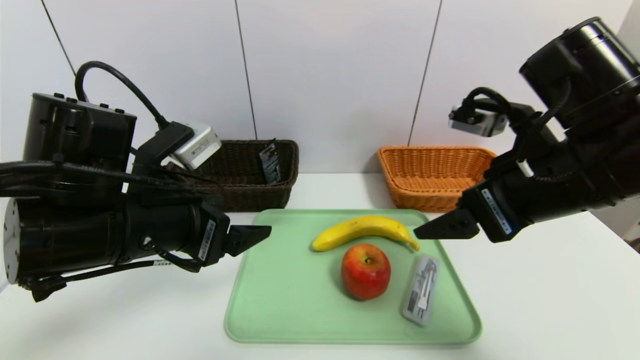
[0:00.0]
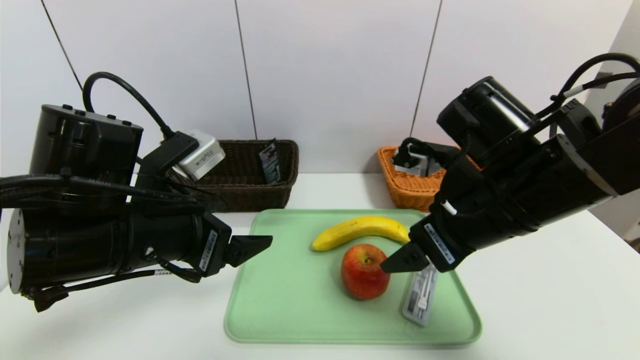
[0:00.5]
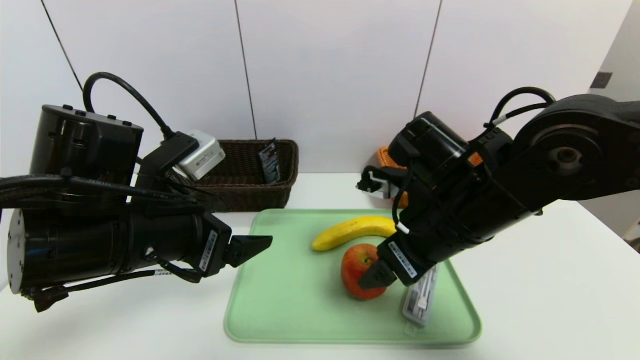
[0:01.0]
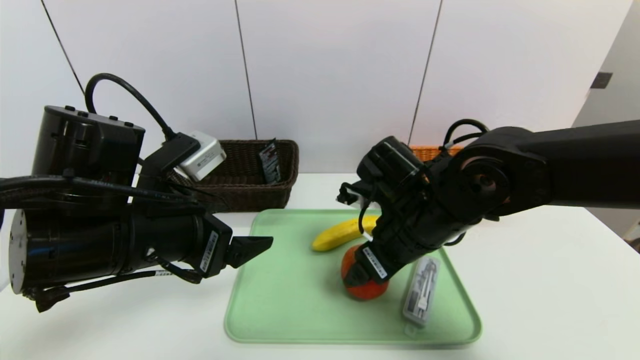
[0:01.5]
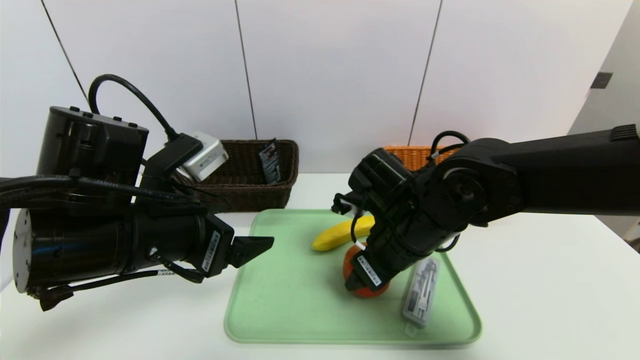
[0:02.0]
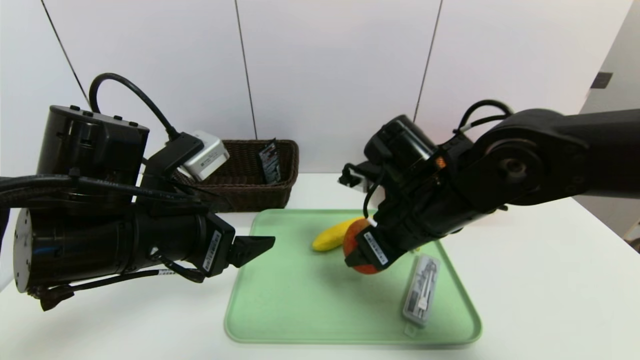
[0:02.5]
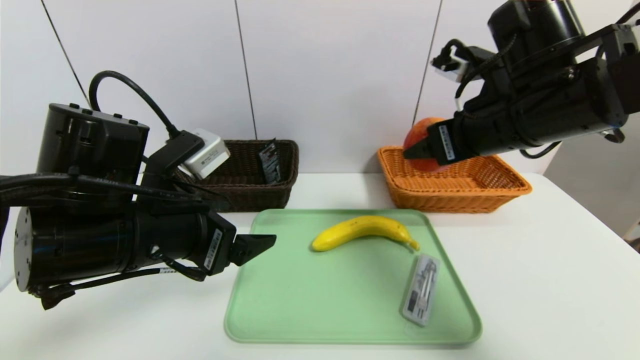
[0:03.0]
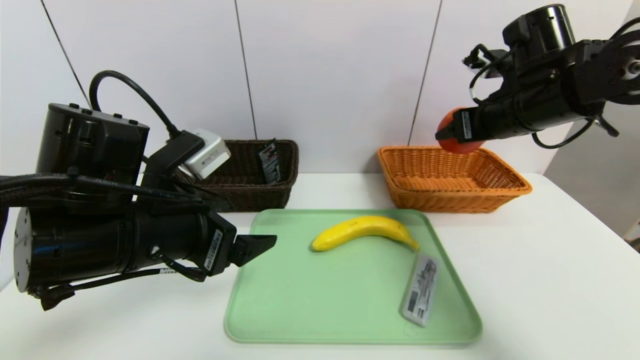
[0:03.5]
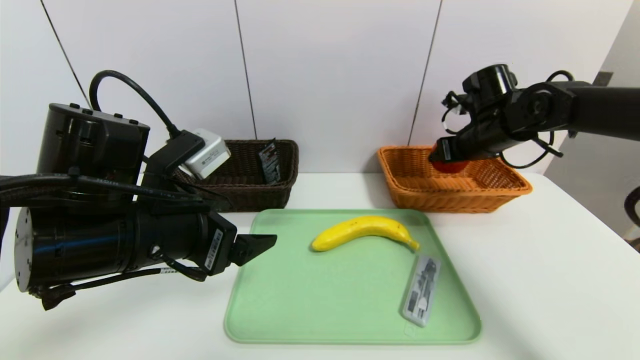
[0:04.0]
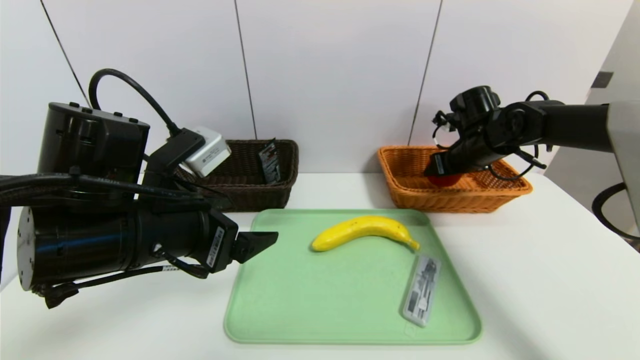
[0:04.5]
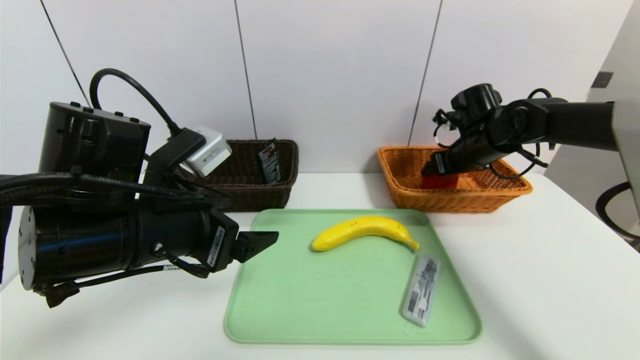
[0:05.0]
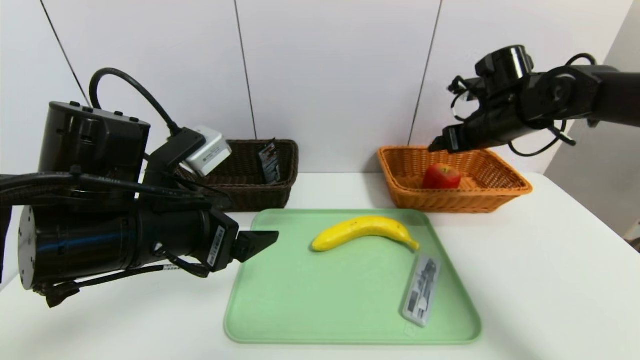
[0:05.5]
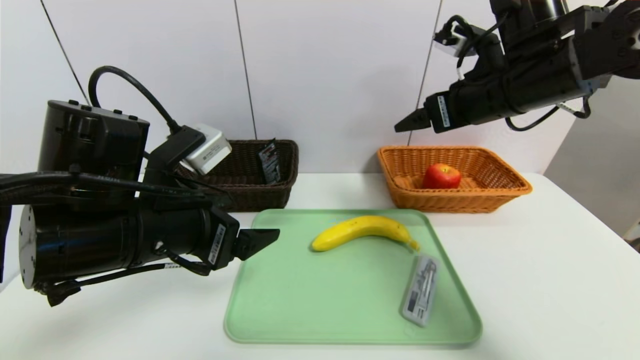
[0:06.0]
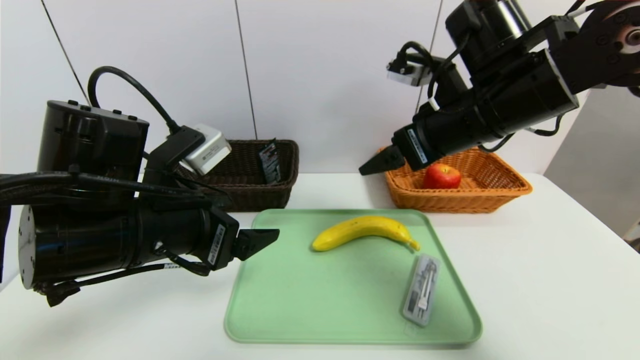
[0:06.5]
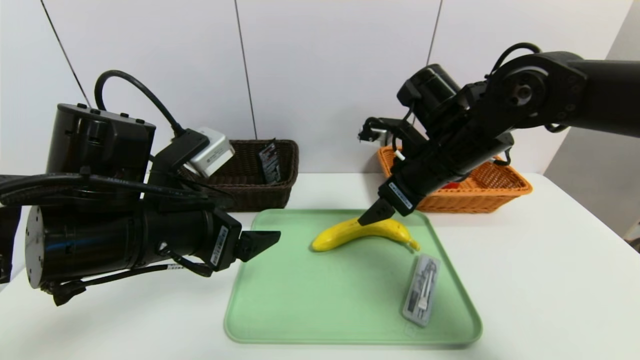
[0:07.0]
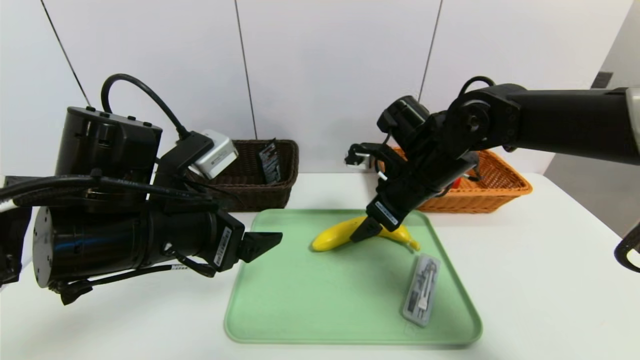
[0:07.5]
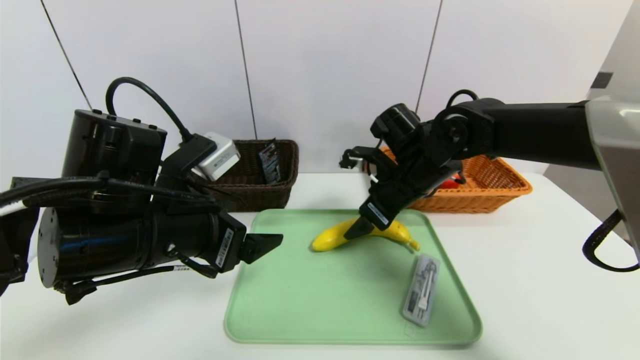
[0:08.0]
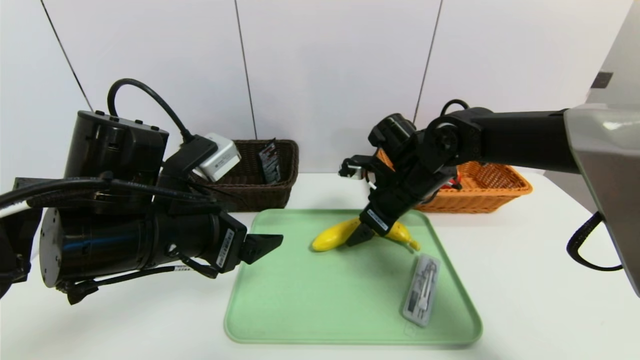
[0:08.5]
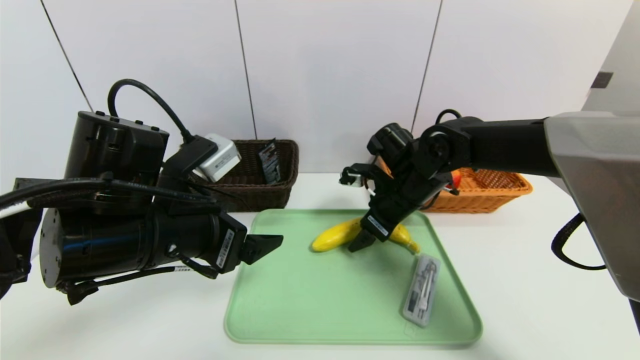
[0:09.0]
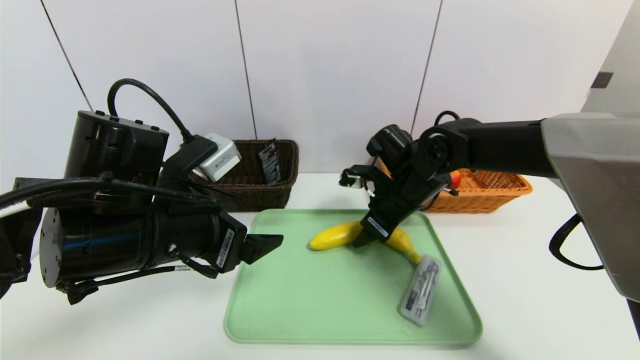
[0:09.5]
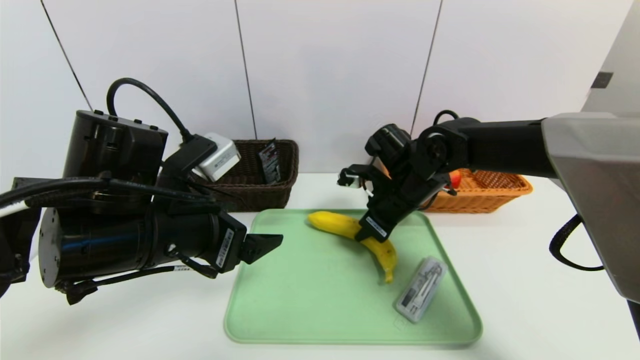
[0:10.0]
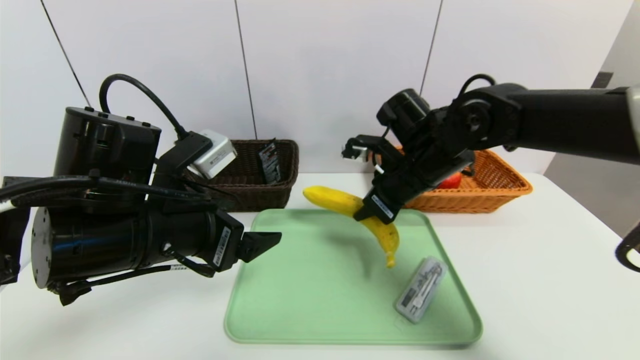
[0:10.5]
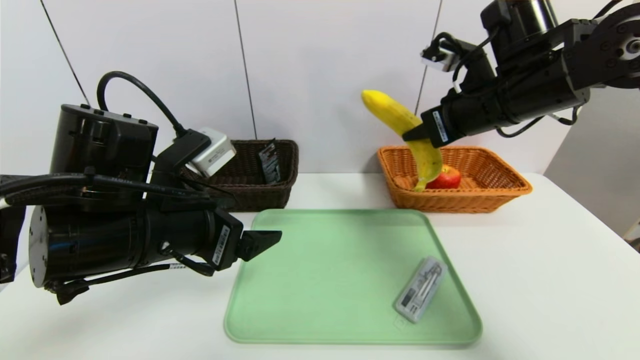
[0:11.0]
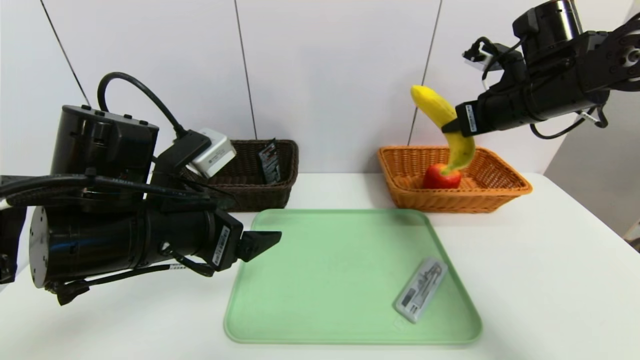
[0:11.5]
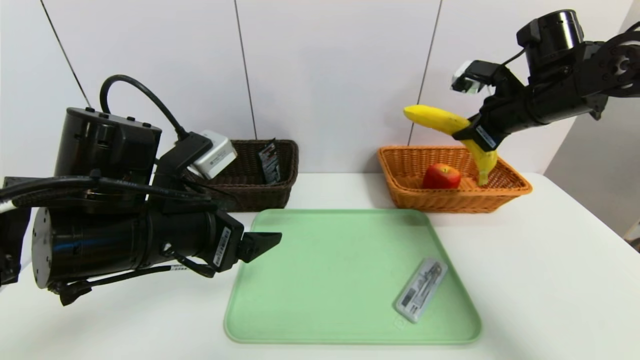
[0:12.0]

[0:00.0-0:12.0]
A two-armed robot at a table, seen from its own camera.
Task of the whole recording: place the food in the right basket with the right gripper, and place the non food items in the left basket with the left gripper.
Step, 0:00.0 to 0:05.0: Grasp the apple and put it in the right basket.
0:00.0 to 0:02.0: The right gripper is displaced downward, to the left and forward by roughly 15 cm, and closes.
0:02.0 to 0:04.0: The right gripper moves to the right and forward, some 25 cm.
0:04.0 to 0:06.0: The right gripper travels backward, upward and to the left by approximately 15 cm, and opens.
0:06.0 to 0:08.0: The right gripper heads downward and to the left, covering roughly 15 cm.
0:08.0 to 0:10.0: The right gripper closes its fingers.
0:10.0 to 0:12.0: The right gripper heads to the right and upward, covering approximately 20 cm.

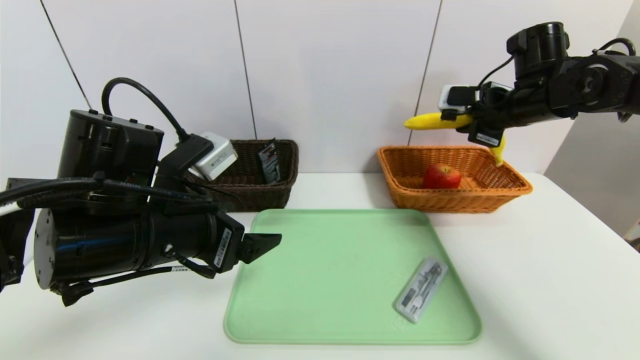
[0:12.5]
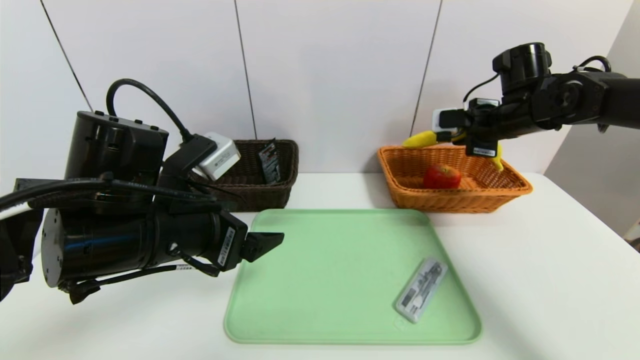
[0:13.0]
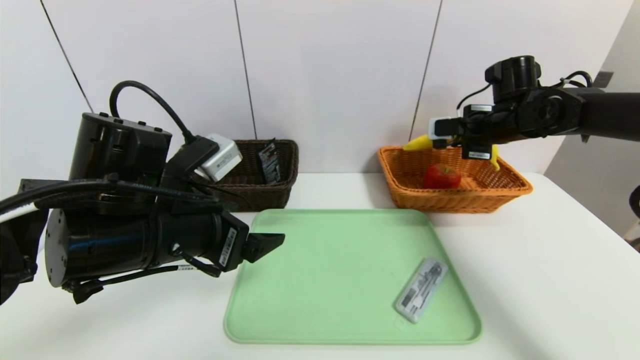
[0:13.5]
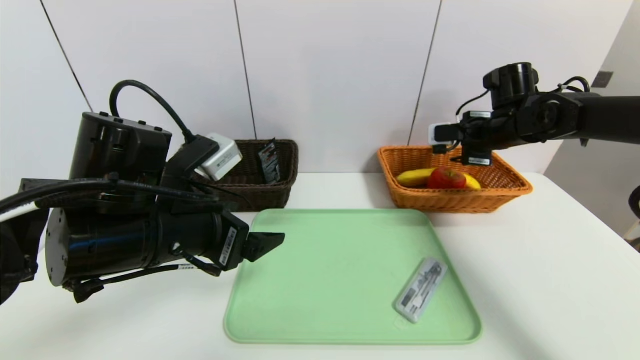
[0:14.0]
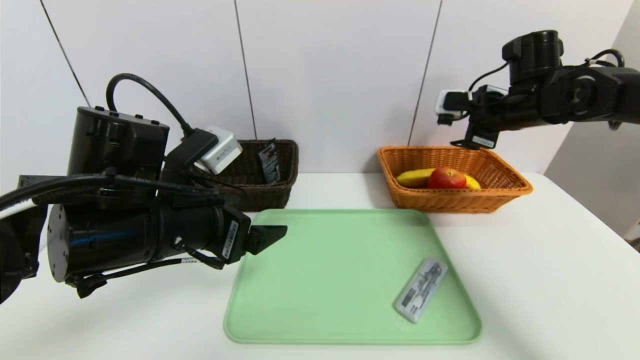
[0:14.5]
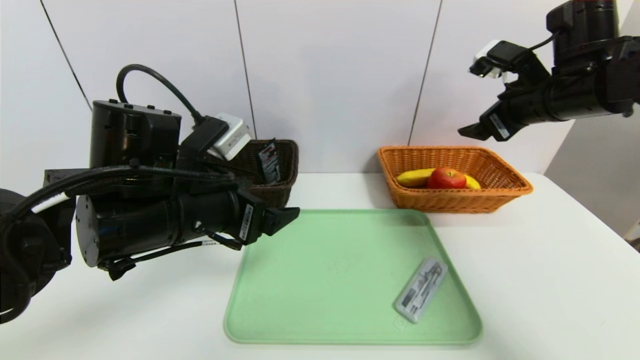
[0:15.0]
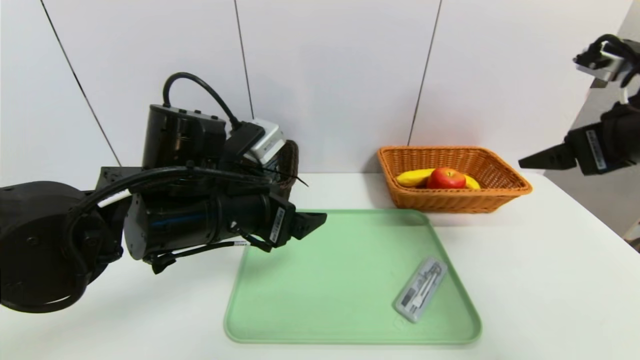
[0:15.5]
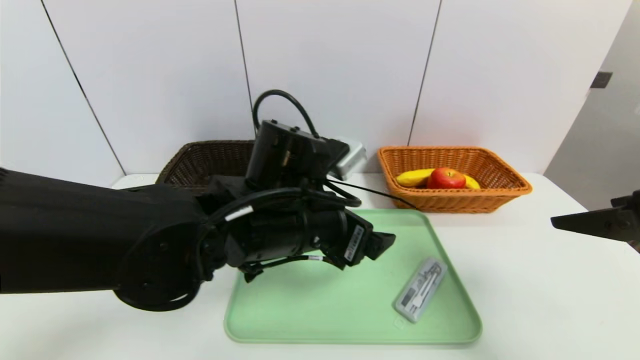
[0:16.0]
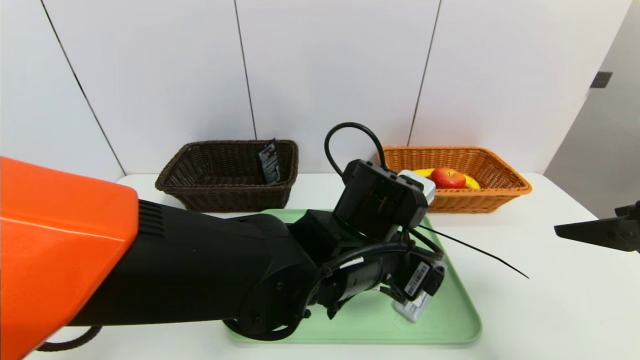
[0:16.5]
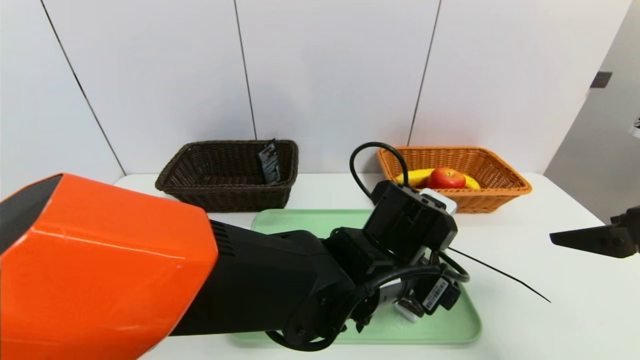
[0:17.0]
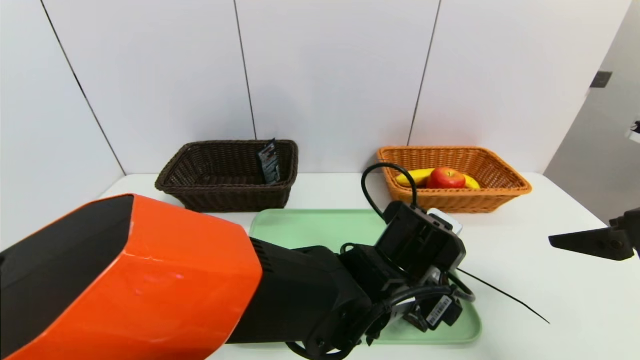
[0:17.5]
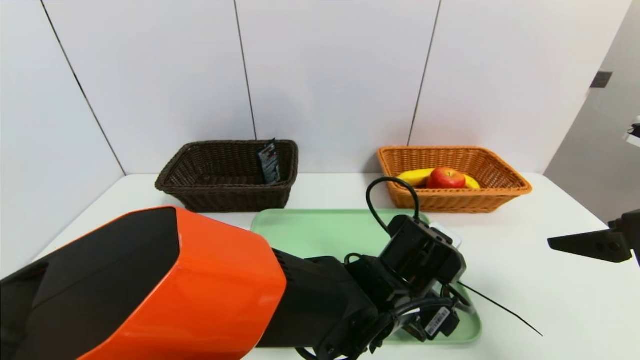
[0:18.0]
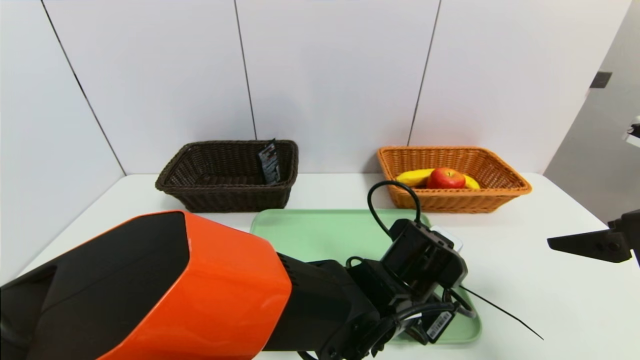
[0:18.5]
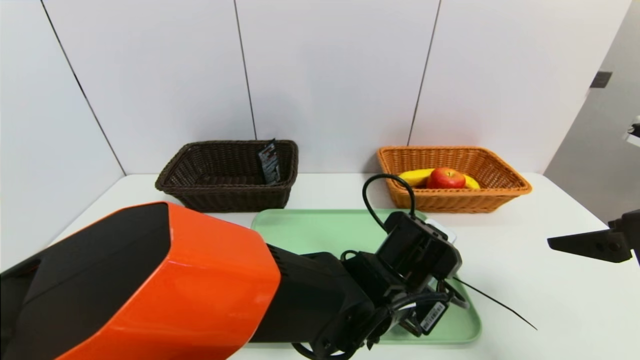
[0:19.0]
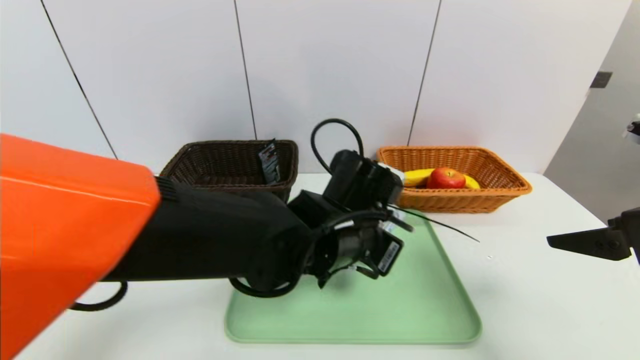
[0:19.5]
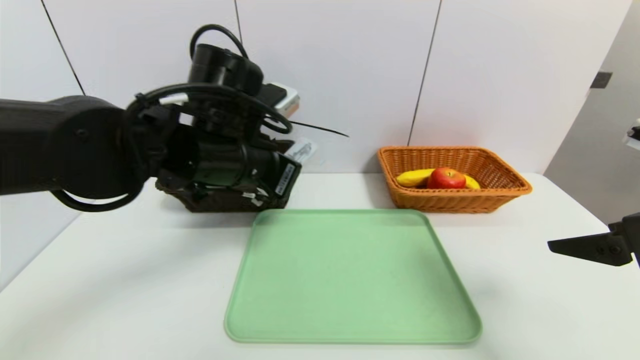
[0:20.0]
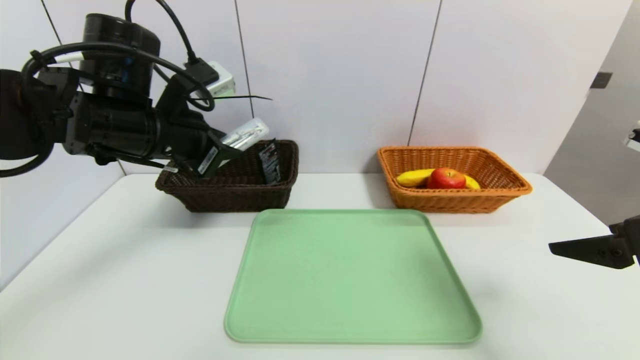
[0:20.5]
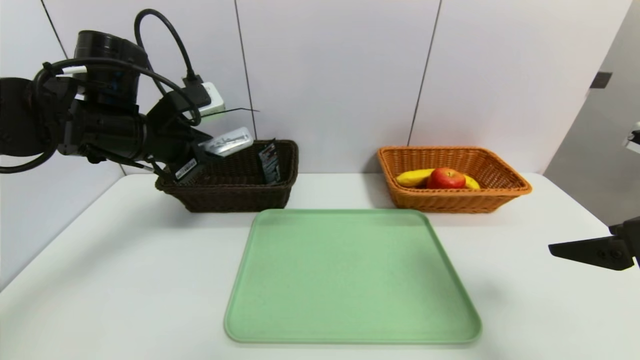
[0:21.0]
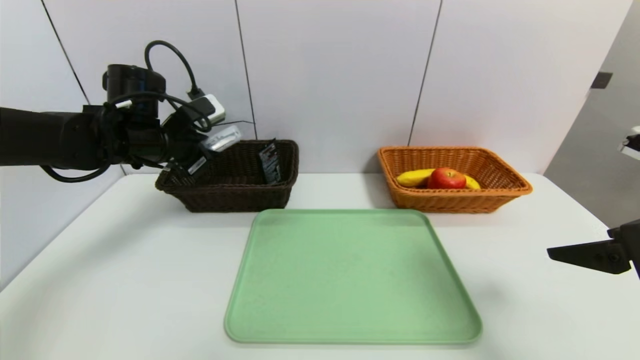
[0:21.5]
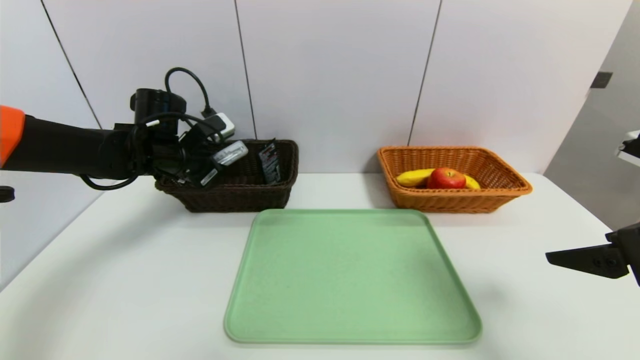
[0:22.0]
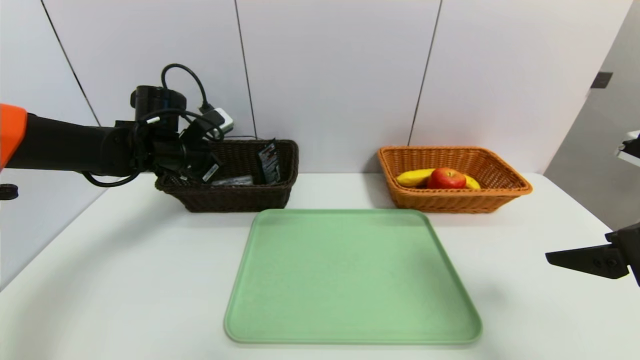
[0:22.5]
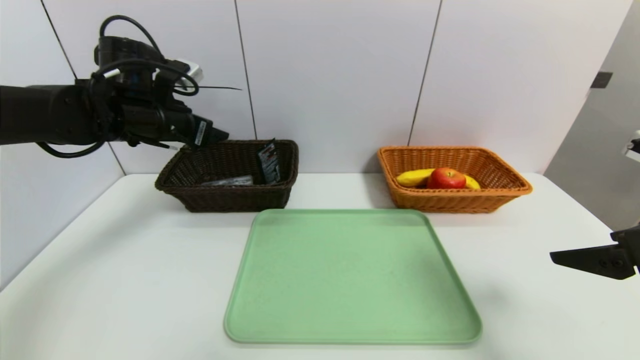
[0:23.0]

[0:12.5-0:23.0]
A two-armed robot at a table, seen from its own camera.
Task of the whole recording: place the food in the right basket with the right gripper, and place the non food items in the left basket with the left gripper.
Step, 0:14.0 to 0:22.5: Grasp the compass and put it in the left basket.
0:12.5 to 0:14.5: The right gripper opens its fingers.
0:14.5 to 0:16.5: The right gripper goes roughly 25 cm backward. The left gripper travels to the right by roughly 20 cm.
0:16.5 to 0:19.0: The left gripper is displaced downward by about 5 cm, and closes its fingers.
0:19.0 to 0:21.0: The left gripper heads to the left and upward, covering about 35 cm.
0:21.0 to 0:23.0: The left gripper is displaced forward by about 5 cm, and opens up.
